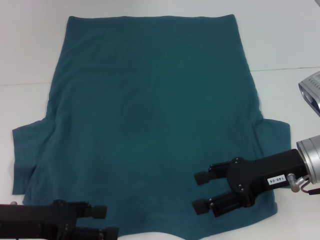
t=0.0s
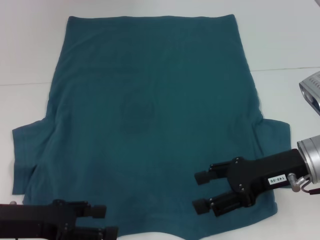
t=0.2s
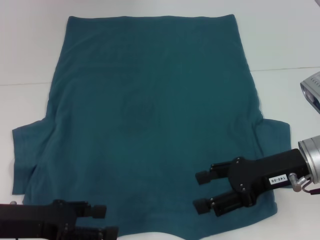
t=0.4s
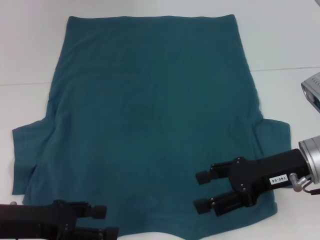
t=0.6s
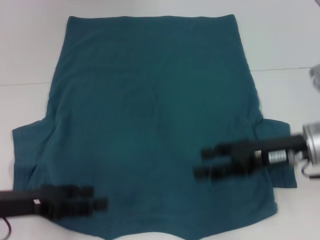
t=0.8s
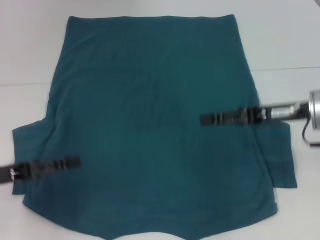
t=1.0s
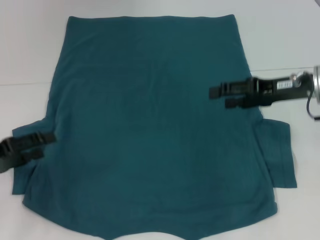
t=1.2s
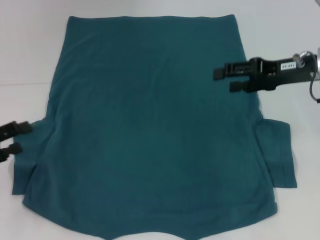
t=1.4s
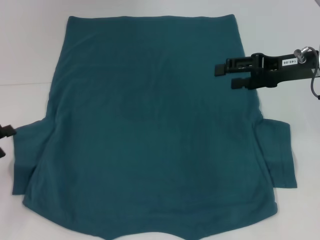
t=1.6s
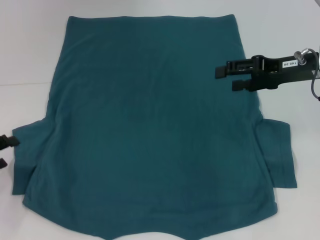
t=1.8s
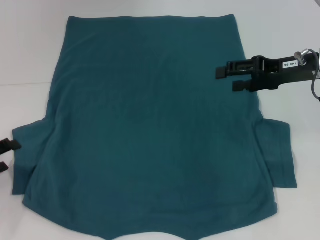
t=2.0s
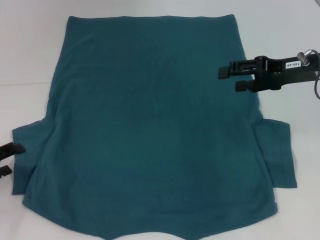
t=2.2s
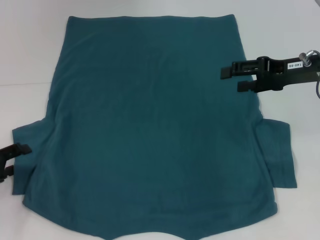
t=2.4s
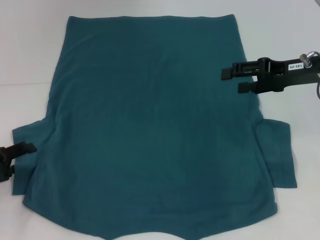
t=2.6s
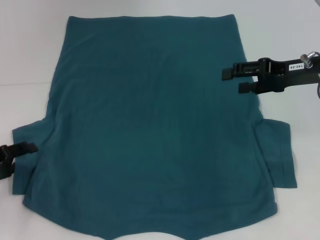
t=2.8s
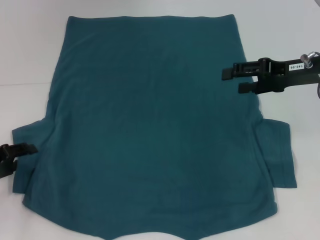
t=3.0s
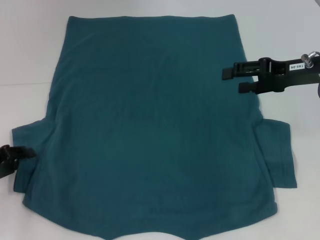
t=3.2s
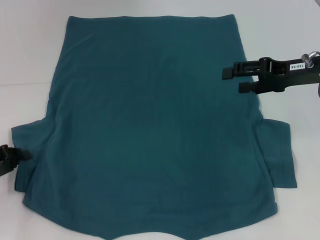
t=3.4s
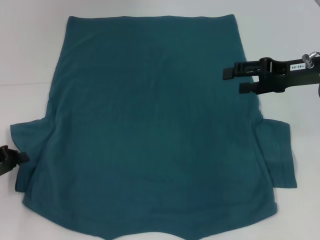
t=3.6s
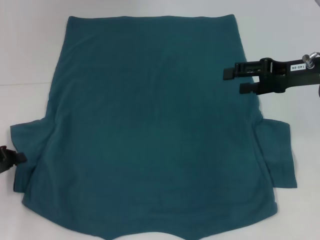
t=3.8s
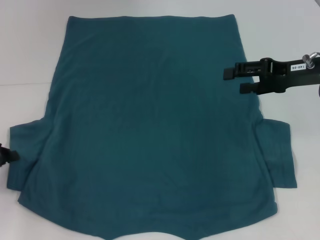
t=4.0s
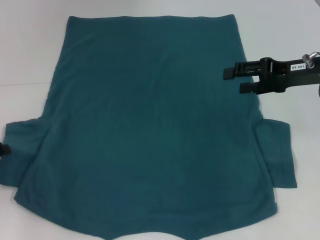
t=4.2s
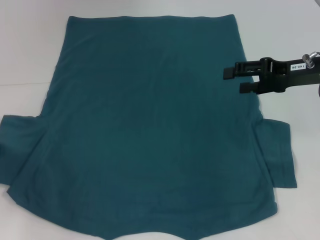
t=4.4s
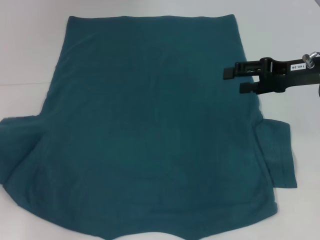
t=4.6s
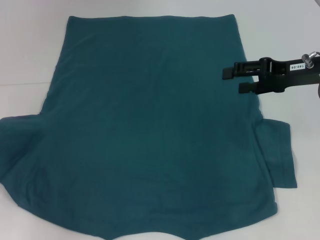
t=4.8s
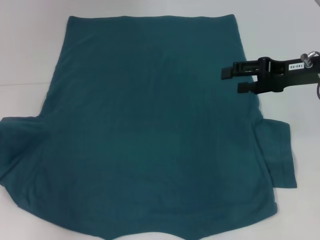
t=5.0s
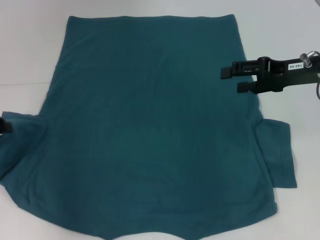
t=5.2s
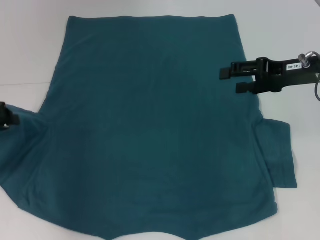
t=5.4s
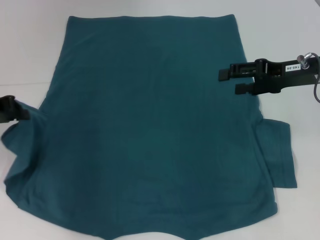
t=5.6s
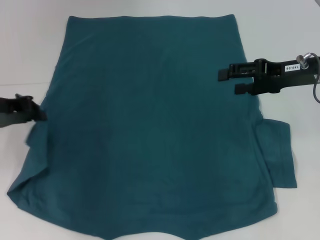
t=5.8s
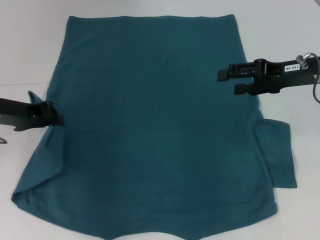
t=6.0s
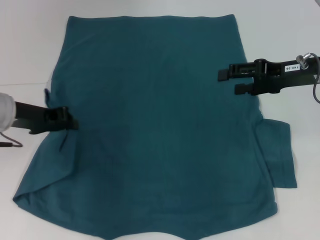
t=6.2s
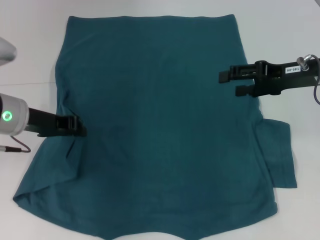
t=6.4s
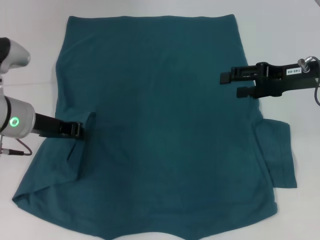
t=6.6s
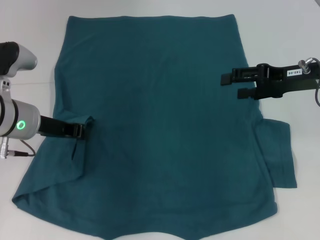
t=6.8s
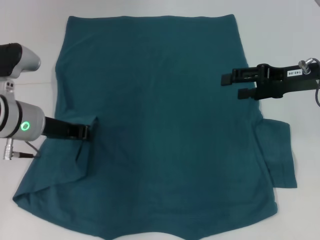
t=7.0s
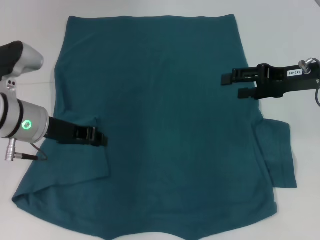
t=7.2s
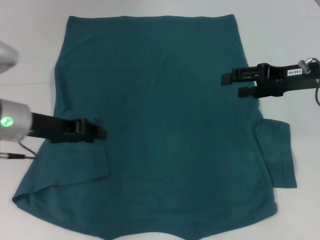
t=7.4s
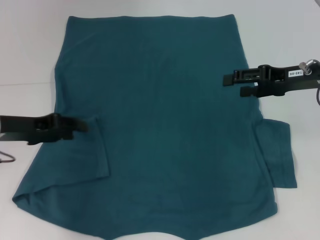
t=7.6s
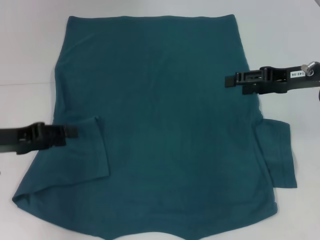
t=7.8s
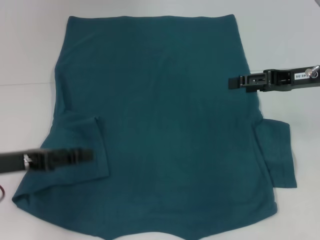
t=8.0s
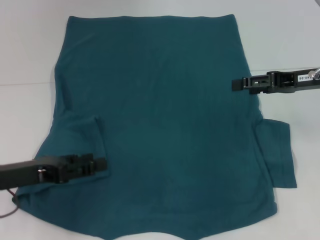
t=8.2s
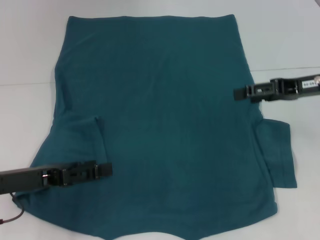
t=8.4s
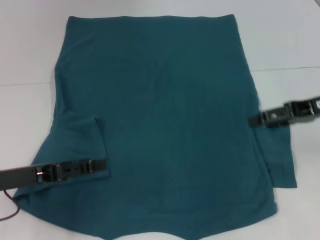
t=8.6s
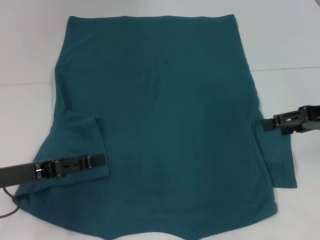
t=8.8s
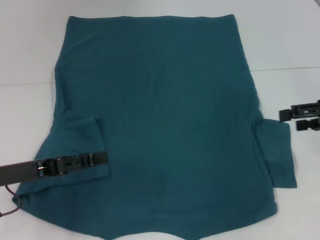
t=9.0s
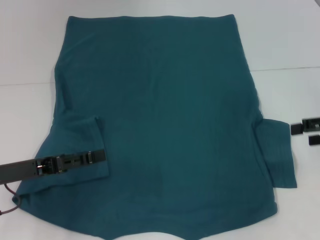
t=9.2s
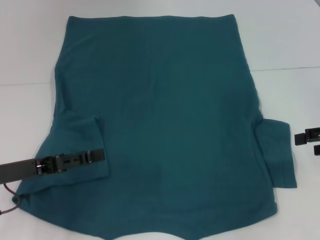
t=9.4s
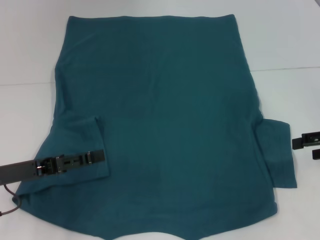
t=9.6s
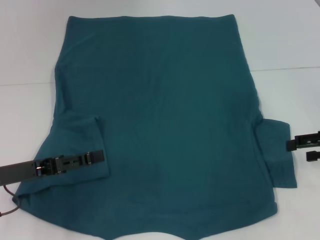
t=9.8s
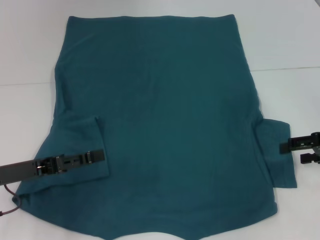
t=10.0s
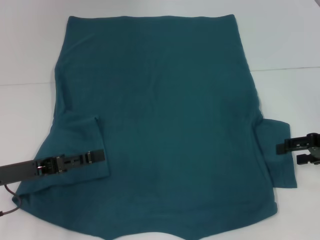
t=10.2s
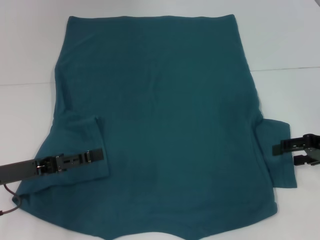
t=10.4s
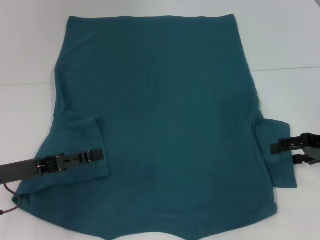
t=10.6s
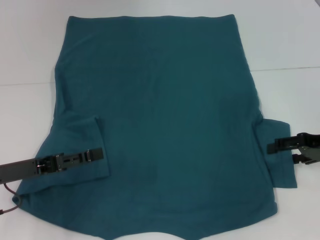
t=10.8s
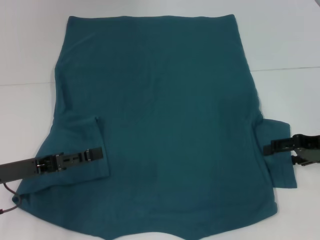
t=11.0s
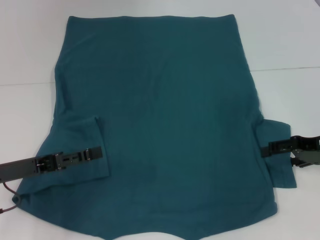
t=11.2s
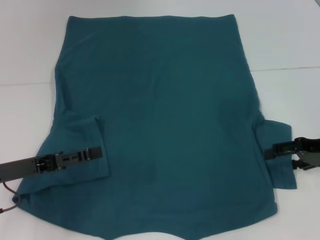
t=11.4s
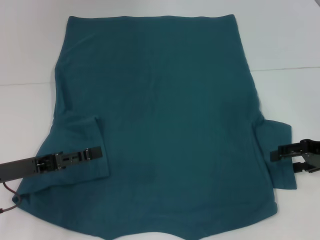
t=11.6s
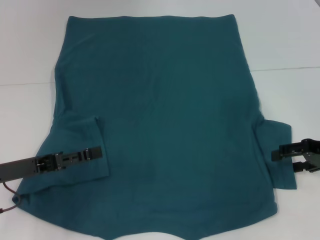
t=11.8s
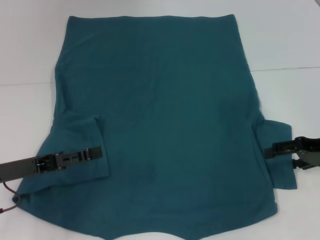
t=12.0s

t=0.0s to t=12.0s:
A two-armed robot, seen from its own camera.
Step, t=0.0s to t=7.0s: Fold the bottom left sleeve with your left hand.
t=0.0s to t=1.6s: The right gripper travels forward and upward by about 10 cm. Meanwhile the left gripper moves to the left, some 10 cm.
t=1.6s to t=3.0s: There are only small adjustments of the grippers.
t=3.0s to t=4.4s: The left gripper changes place by some 5 cm, and closes its fingers.
t=4.4s to t=6.0s: The left gripper shifts approximately 10 cm to the right and upward.
t=6.0s to t=7.6s: The left gripper opens.
t=7.6s to t=9.0s: The left gripper is displaced backward by about 5 cm, and opens its fingers, while the right gripper goes approximately 10 cm to the right and backward.
t=9.0s to t=10.4s: The right gripper goes roughly 5 cm downward.
t=10.4s to t=12.0s: The grippers make only small movements.

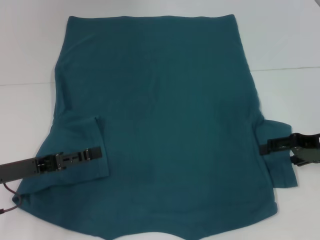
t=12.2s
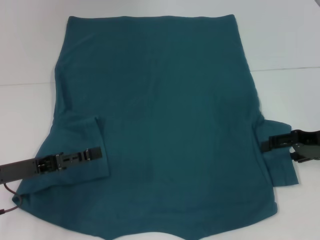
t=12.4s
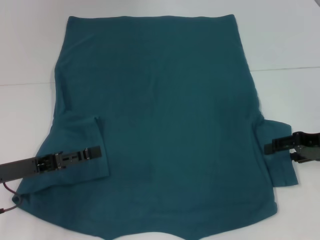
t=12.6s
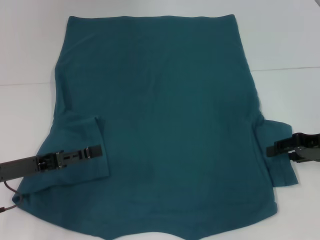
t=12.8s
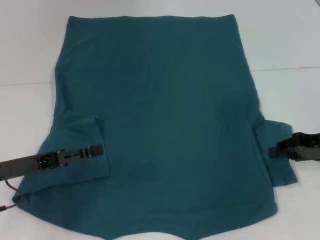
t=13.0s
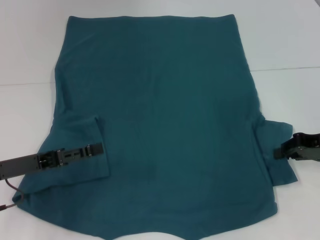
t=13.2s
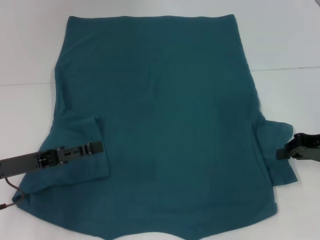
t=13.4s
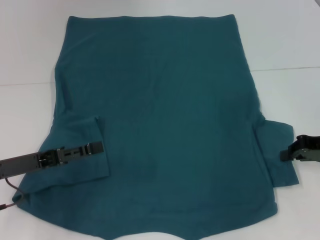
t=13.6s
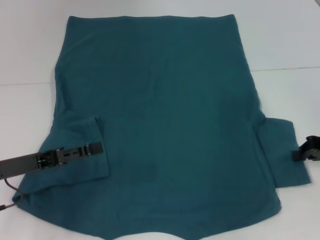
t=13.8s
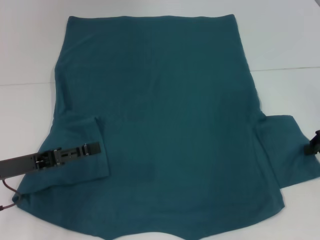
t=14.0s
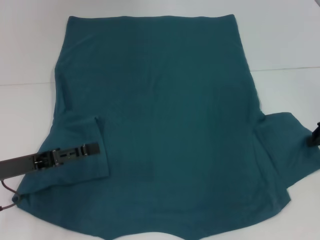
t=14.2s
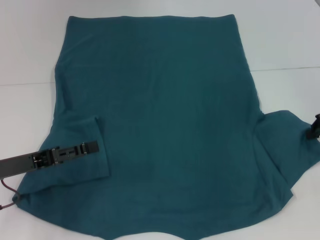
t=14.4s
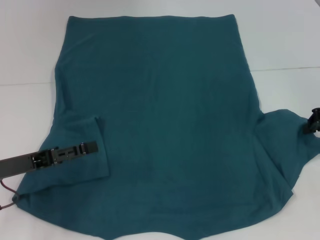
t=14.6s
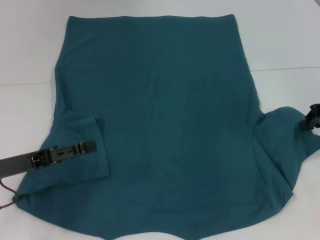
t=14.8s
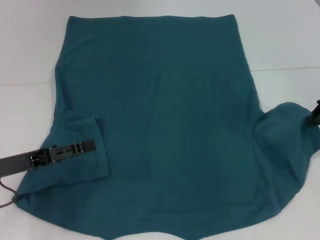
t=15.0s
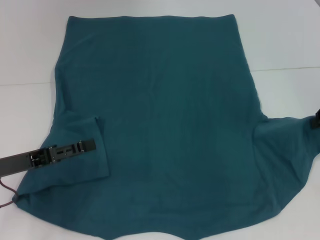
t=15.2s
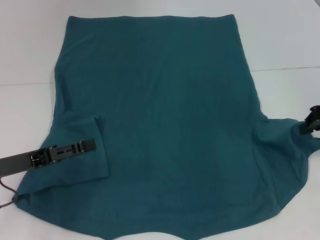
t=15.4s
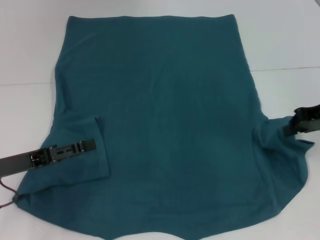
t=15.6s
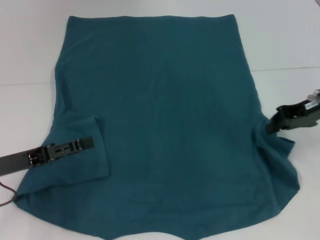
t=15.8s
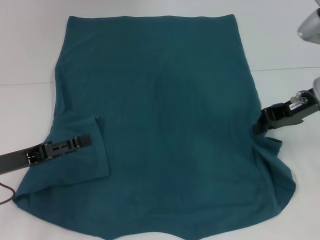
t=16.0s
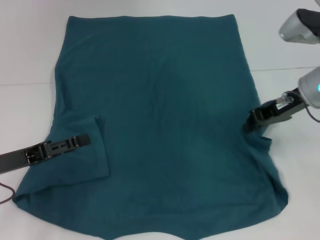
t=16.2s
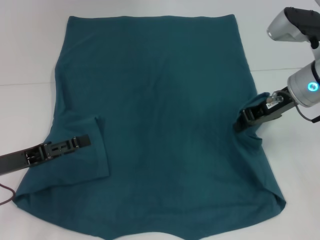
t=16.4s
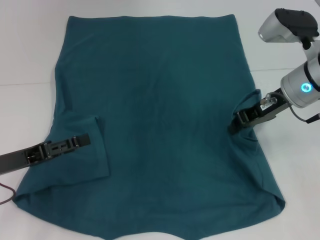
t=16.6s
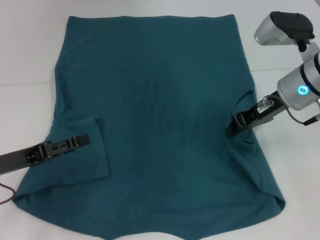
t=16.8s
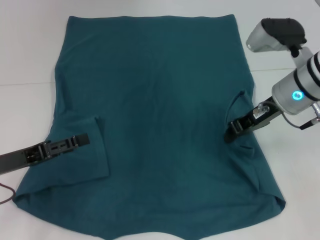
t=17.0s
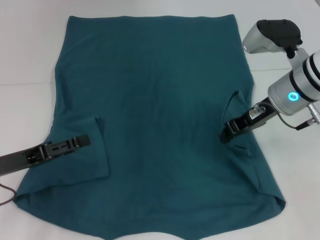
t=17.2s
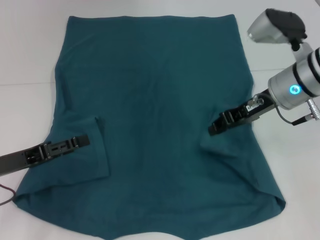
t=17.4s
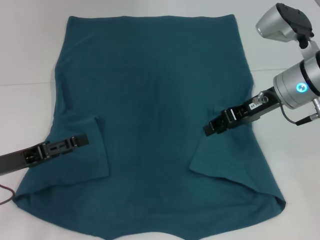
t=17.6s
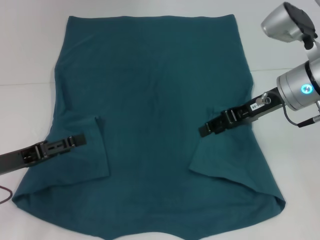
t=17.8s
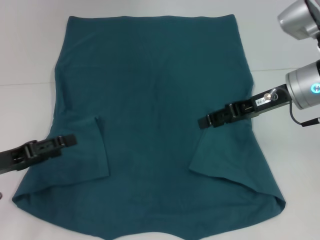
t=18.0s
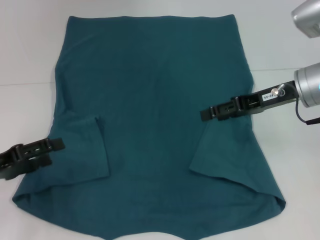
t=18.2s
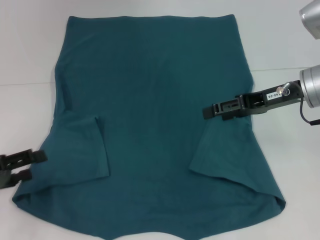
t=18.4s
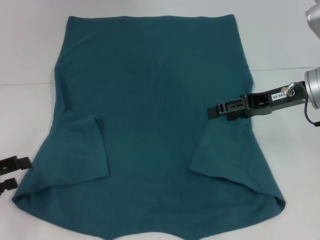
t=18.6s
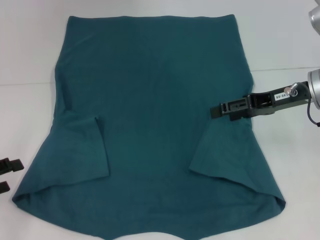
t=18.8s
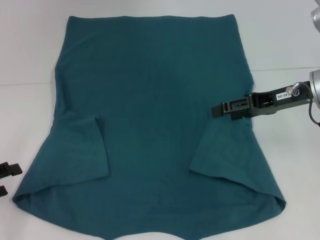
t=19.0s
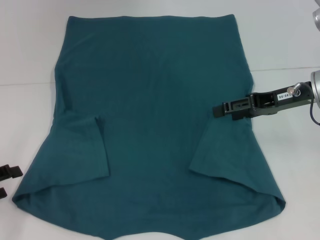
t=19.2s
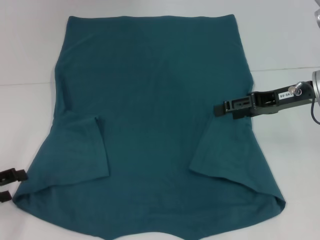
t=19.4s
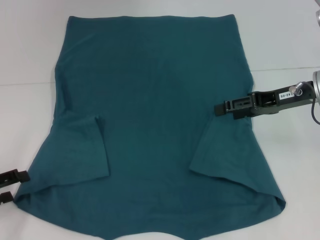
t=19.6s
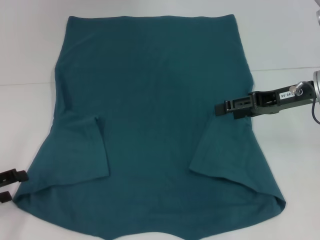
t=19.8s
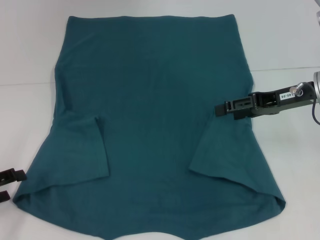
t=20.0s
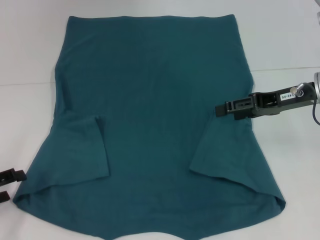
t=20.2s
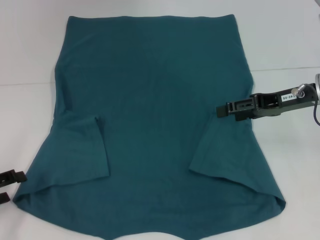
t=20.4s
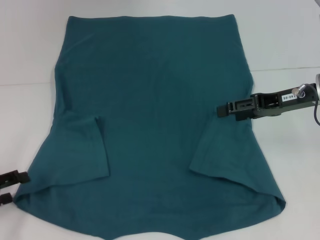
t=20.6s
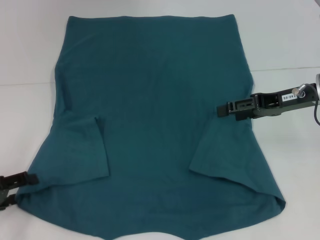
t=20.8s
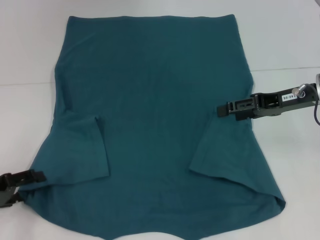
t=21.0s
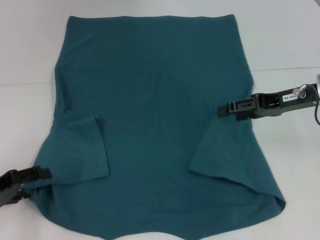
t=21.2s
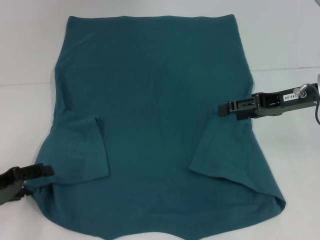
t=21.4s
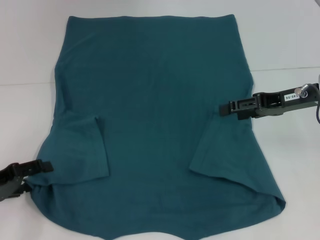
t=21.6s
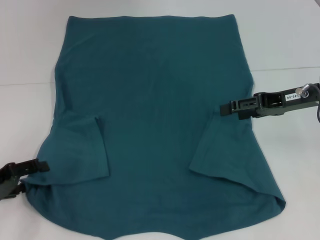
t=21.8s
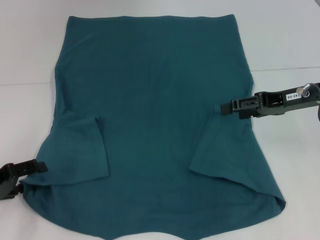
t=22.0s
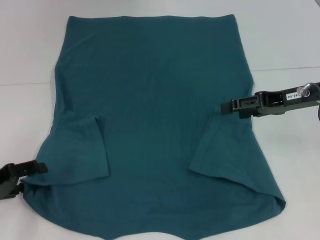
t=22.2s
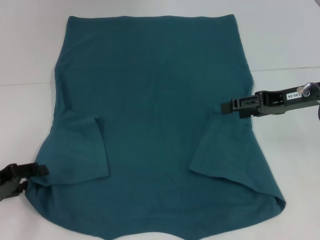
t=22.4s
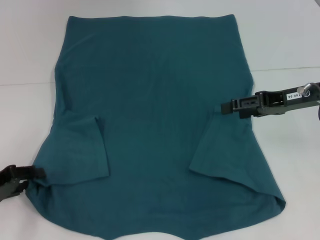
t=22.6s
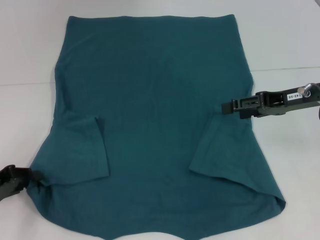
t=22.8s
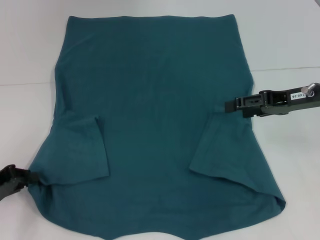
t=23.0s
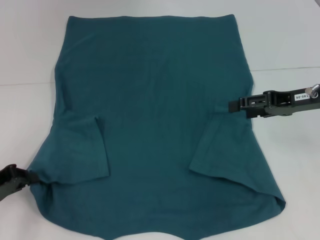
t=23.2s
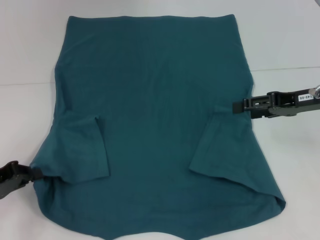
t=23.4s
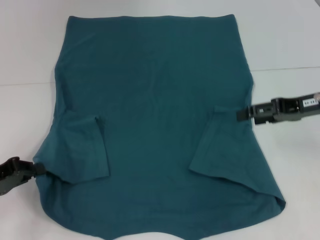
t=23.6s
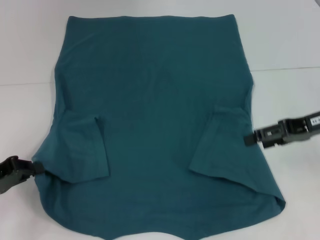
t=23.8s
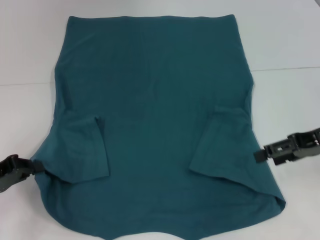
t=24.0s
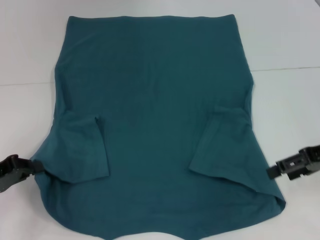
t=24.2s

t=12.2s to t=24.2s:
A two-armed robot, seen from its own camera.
Step, t=12.2s to t=17.4s: Fold the bottom right sleeve to the right.
Step, t=17.6s to t=23.0s: Grab the bottom left corner with your left hand.
t=12.2s to t=13.8s: The right gripper closes.
t=13.8s to t=15.2s: The right gripper goes roughly 5 cm upward.
t=15.2s to t=16.6s: The right gripper is displaced to the left by about 15 cm.
t=16.6s to t=18.2s: The right gripper opens.
t=18.2s to t=19.8s: The left gripper shifts by about 5 cm.
t=19.8s to t=21.2s: The grippers stay close to where they were, moving slightly.
t=21.2s to t=22.6s: Both grippers stay about where they are.
t=22.6s to t=24.2s: The right gripper shifts by approximately 5 cm. The left gripper closes its fingers.
